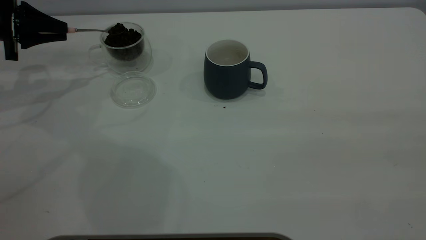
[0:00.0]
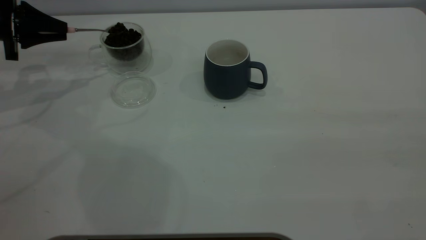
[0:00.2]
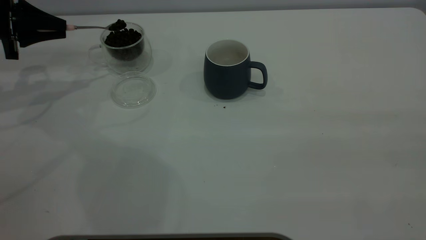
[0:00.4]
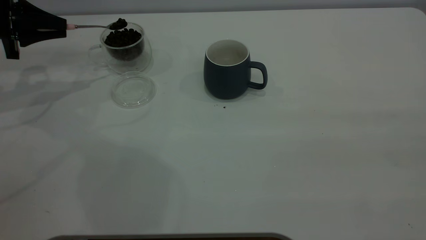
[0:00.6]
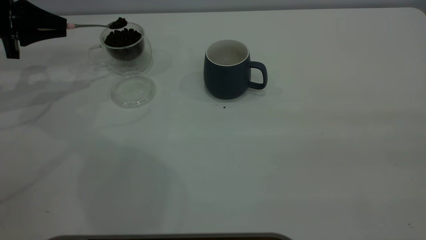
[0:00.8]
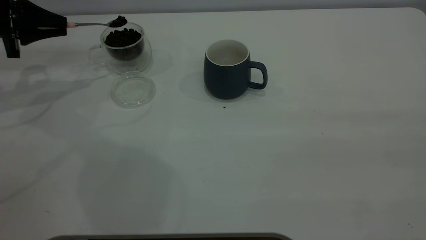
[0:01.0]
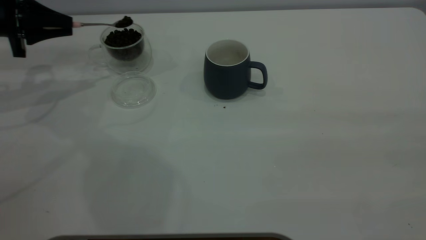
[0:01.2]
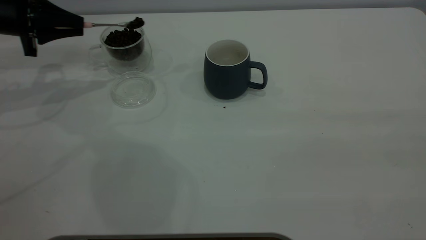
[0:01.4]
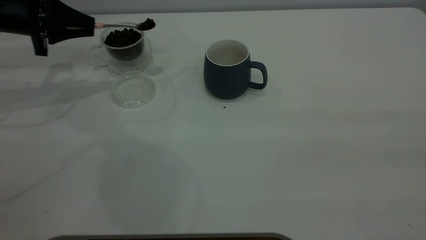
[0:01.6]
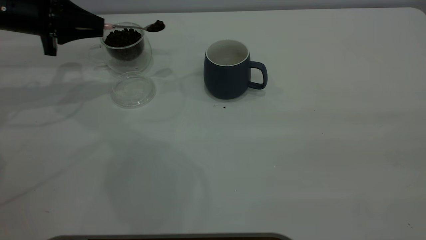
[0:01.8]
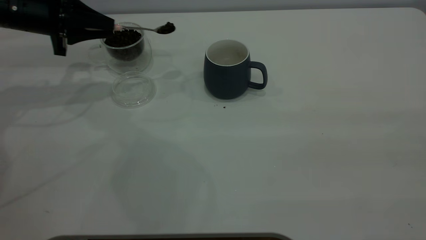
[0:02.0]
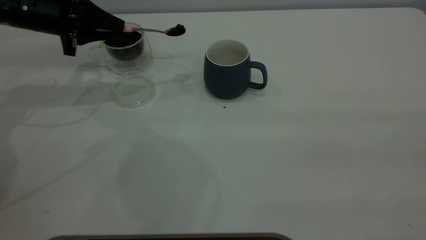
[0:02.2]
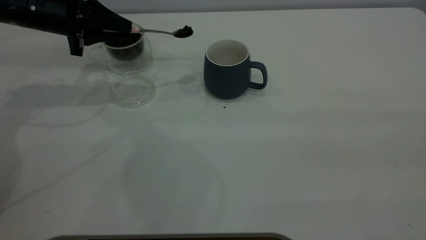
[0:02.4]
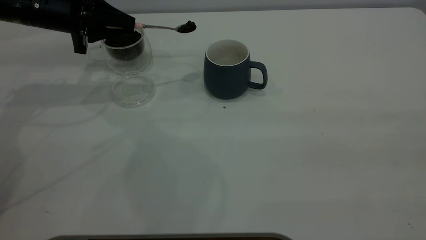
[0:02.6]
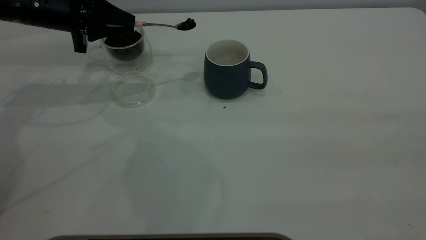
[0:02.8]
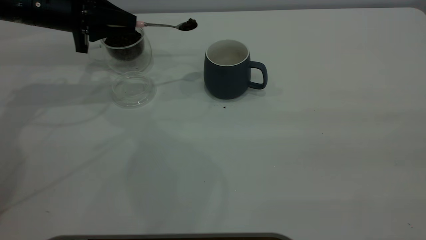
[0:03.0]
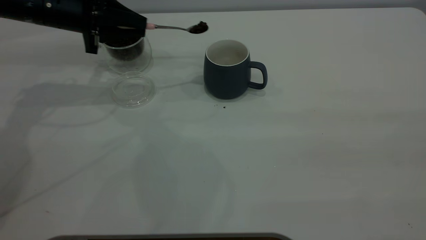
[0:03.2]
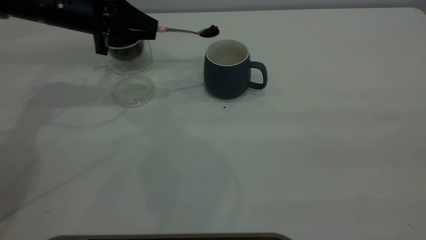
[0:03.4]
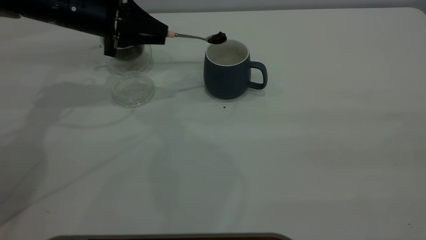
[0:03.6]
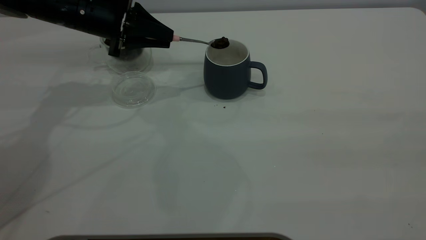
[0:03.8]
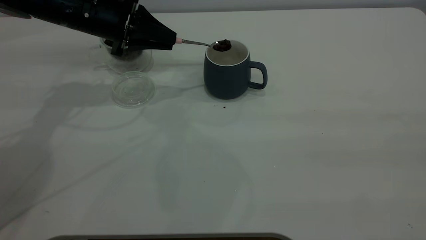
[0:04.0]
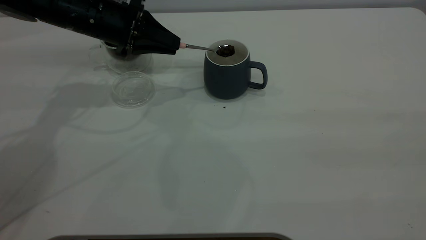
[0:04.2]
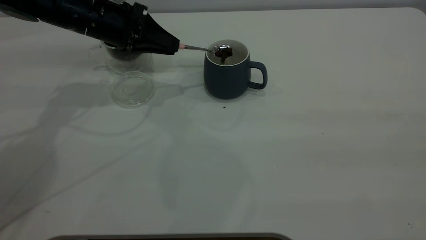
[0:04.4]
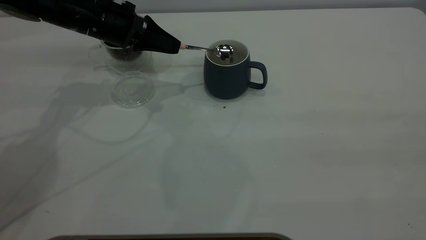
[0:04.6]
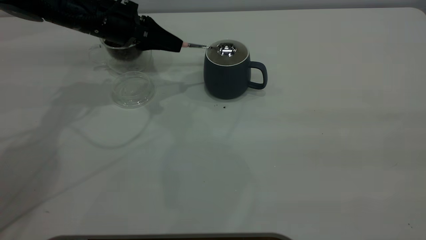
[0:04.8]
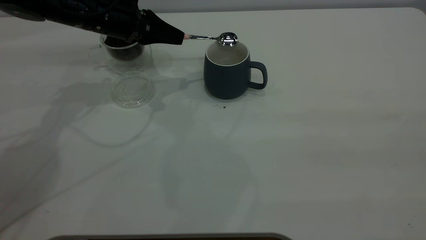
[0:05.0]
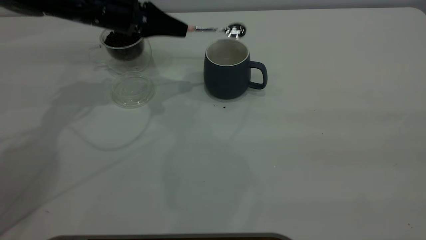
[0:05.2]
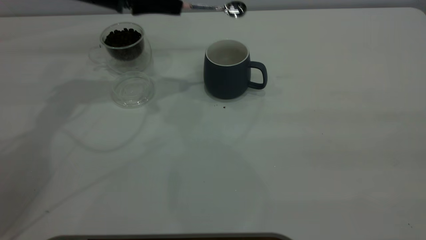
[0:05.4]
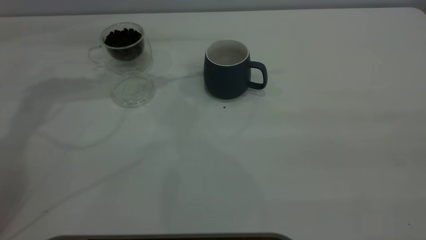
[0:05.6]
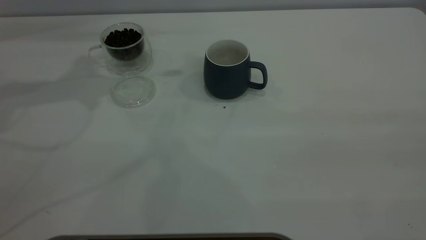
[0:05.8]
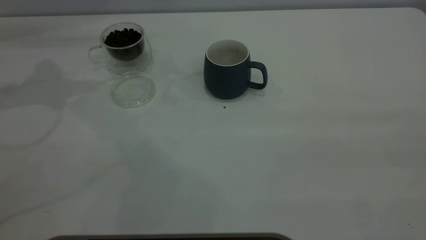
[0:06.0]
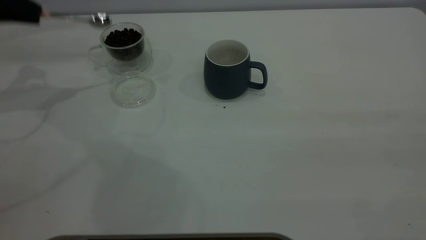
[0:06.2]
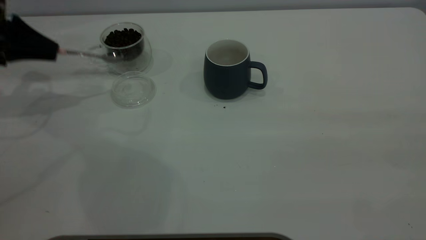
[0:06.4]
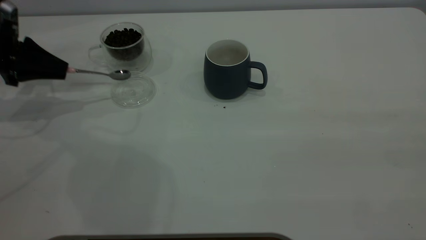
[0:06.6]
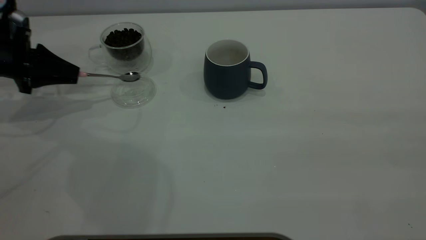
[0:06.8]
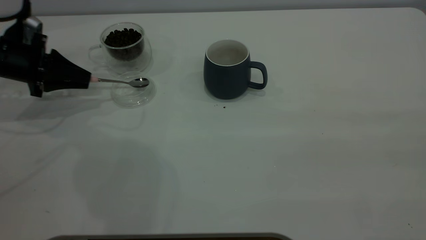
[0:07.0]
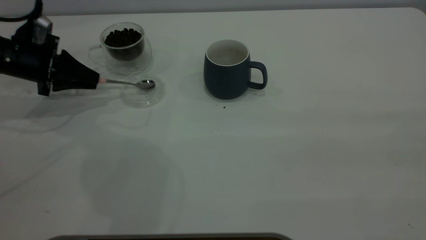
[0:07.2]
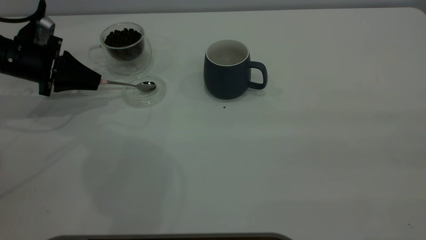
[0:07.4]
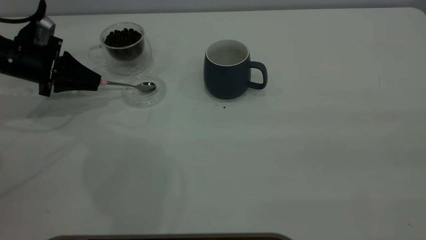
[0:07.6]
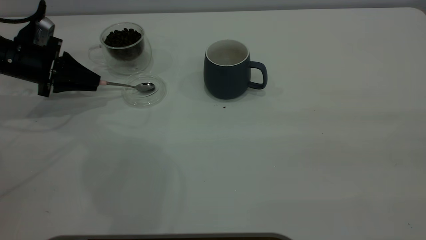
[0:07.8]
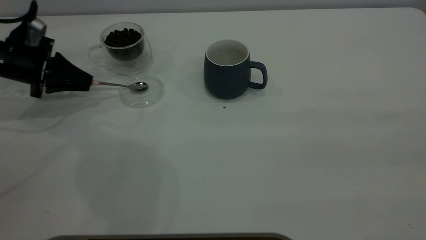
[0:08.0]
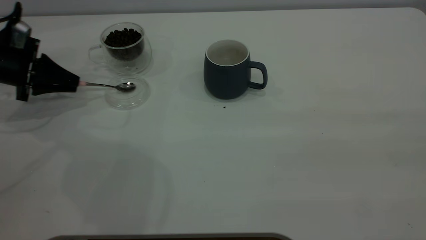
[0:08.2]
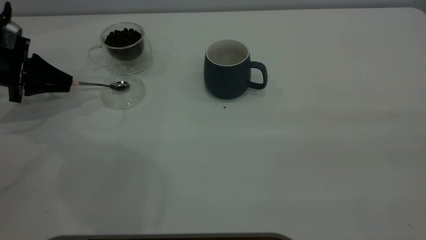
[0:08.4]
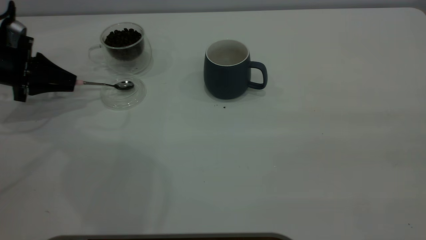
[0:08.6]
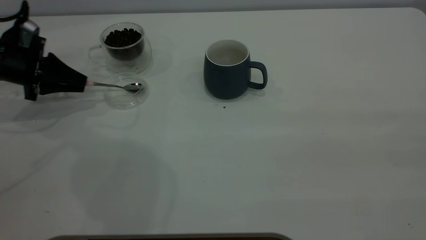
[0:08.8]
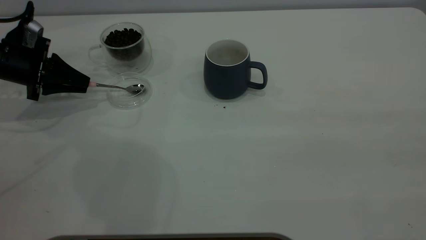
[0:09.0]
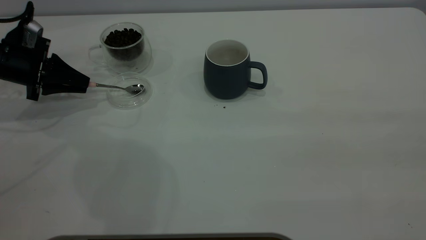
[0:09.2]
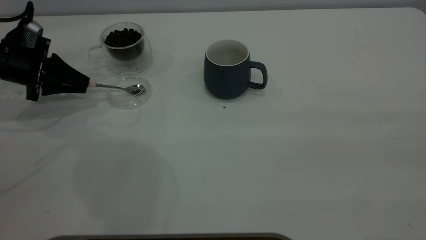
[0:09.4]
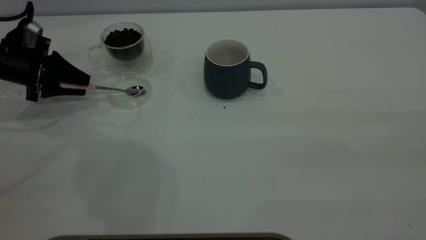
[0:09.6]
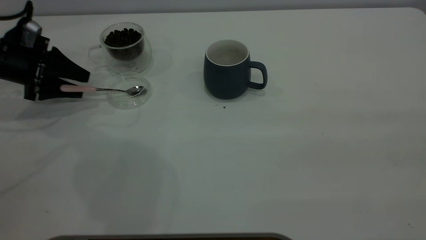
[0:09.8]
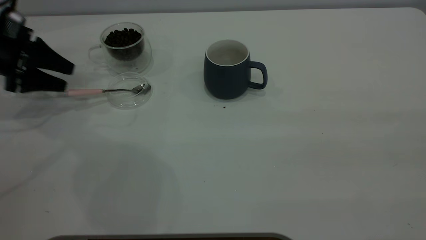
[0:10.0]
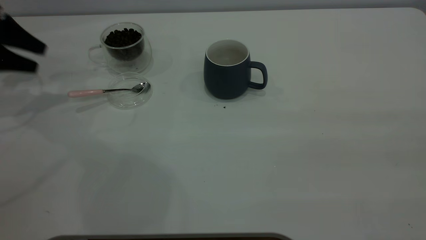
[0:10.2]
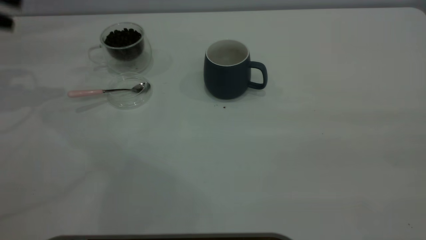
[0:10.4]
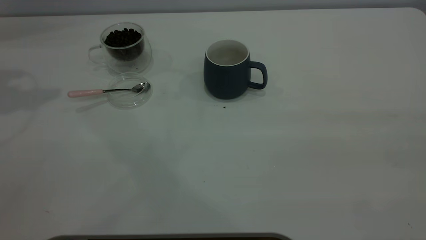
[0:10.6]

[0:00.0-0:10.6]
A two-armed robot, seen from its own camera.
Task of the whole recording: the right gripper place the grey cup in the center of the table, the left gripper take the pink spoon from the cup lid and scoop out the coffee beans from the coffee cup and put them into the grey cup, the left gripper put the spoon back into the cup lid.
Step, 0:00.0 to 0:05.2: Scoop a spoonful of beans into the cup.
Step, 0:05.4 to 0:10.0: Place the spoon back in its original place.
0:00.0 to 0:01.6: The left gripper shifts roughly 5 cm to the right.
0:01.6 to 0:03.0: The left gripper shifts about 5 cm to the right.
0:03.0 to 0:04.6: The left gripper moves to the right, about 5 cm.
0:04.6 to 0:06.0: The left gripper is displaced to the left and upward by about 20 cm.
0:06.0 to 0:07.6: The left gripper is displaced downward by roughly 15 cm.
0:07.6 to 0:09.0: The grippers make only small movements.
0:09.0 to 0:10.6: The left gripper heads upward, covering about 30 cm, and opens.

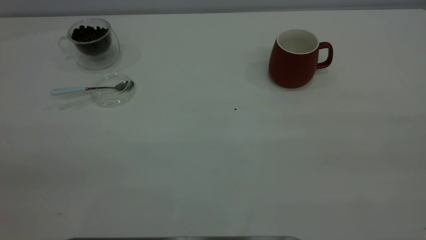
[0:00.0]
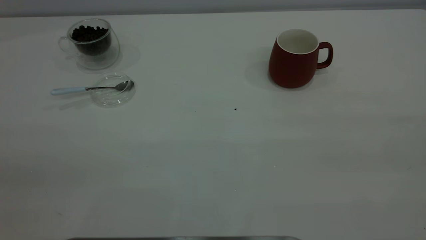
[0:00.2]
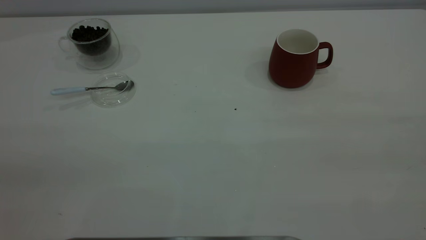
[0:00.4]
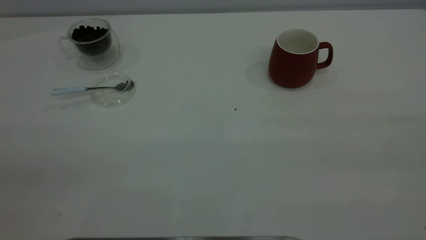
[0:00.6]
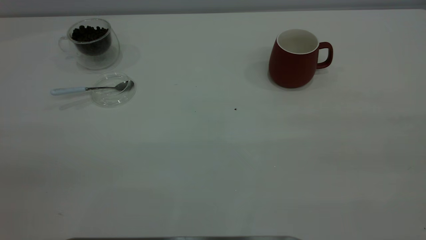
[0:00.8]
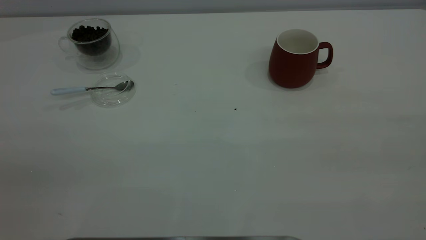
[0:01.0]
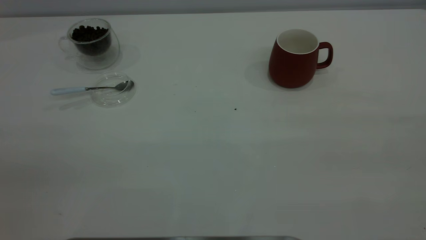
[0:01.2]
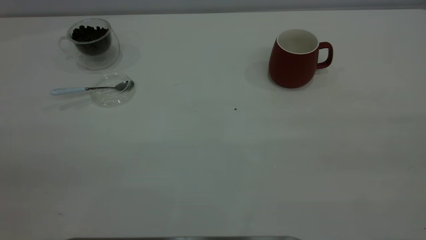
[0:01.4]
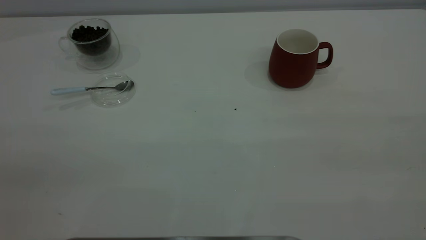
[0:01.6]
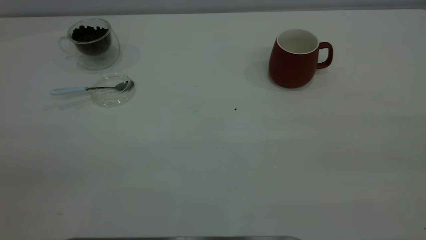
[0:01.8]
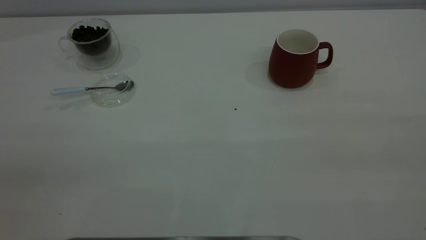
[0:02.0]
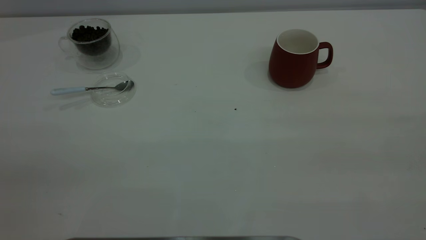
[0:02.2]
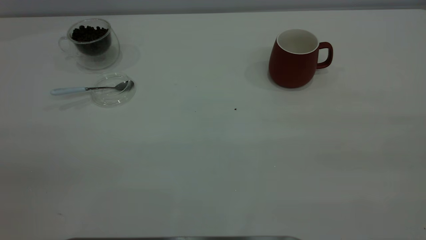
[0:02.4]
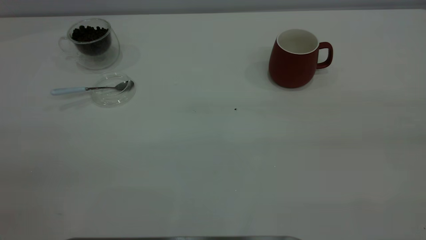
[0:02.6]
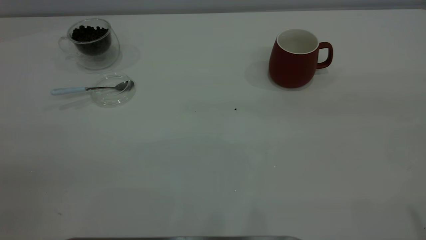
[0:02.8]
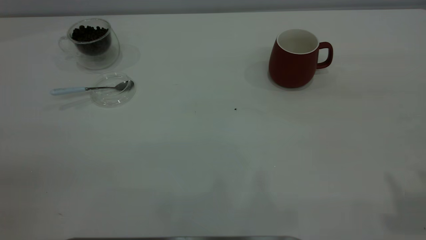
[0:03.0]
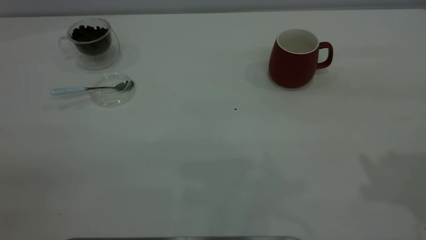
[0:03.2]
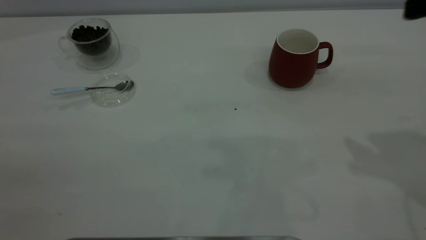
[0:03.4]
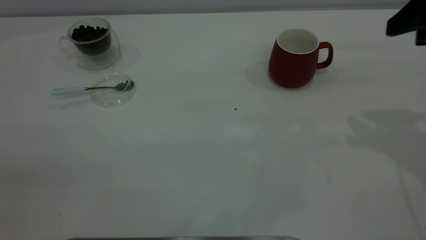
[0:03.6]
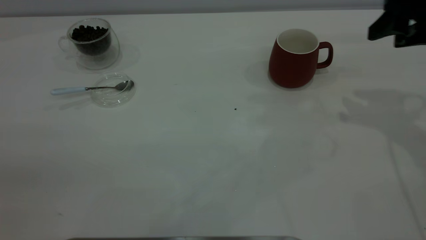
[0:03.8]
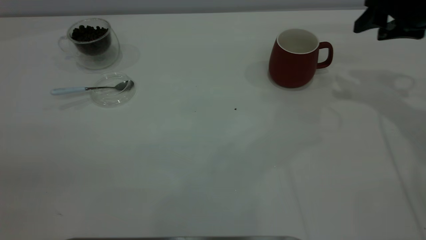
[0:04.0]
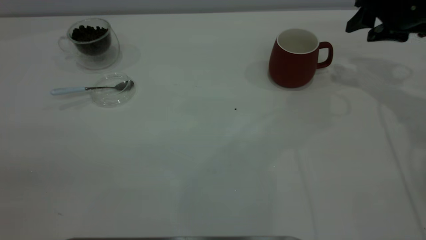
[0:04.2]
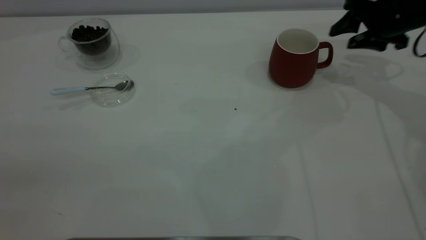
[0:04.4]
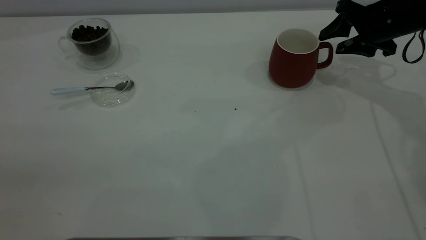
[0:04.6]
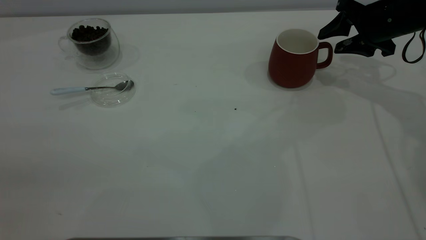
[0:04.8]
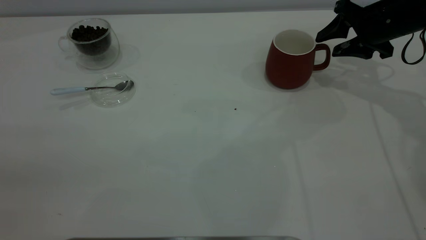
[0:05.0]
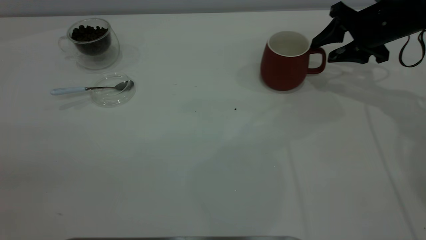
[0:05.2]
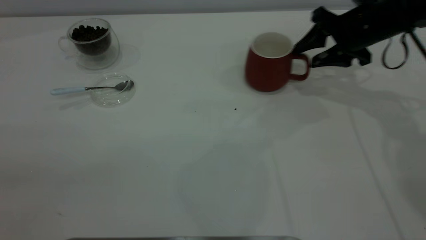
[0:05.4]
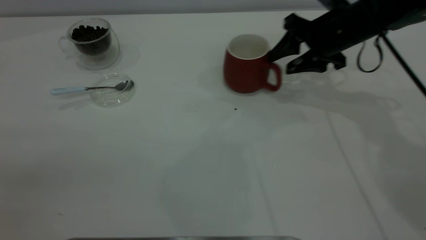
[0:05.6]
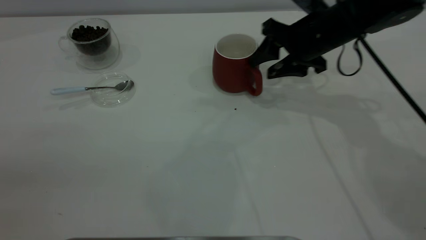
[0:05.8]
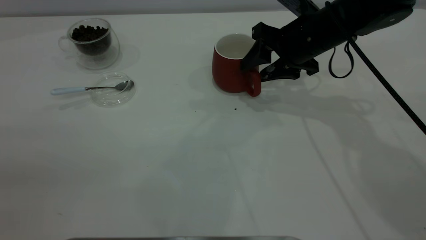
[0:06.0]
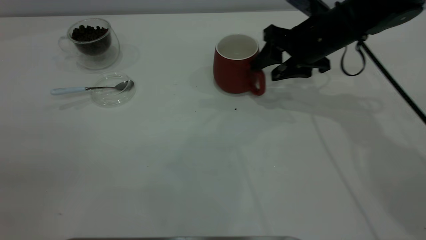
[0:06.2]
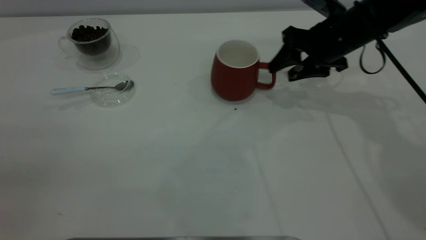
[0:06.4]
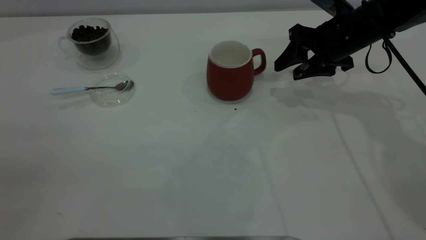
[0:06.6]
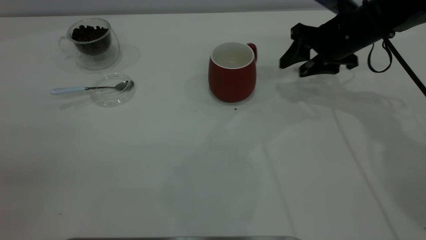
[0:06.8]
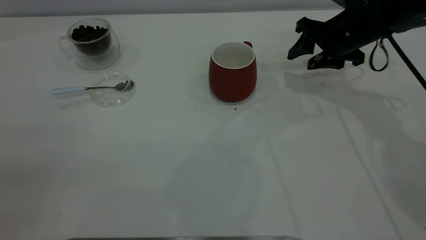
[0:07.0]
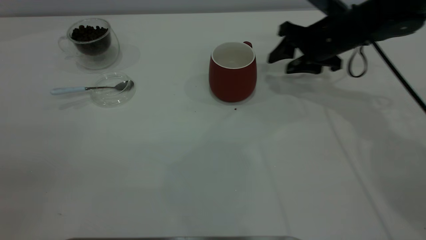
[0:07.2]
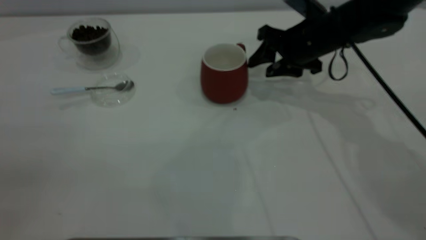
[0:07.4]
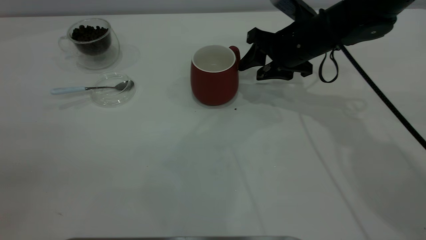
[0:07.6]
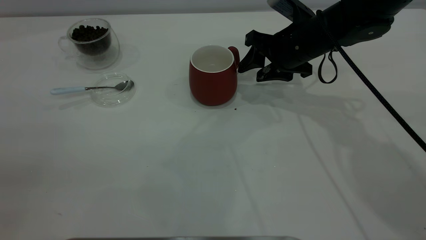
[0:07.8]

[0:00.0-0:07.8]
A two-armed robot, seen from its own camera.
Task of the whole recording: the right gripper place the red cup in the center of the table, the left gripper take the blue spoon from the cup lid and scoop out the coffee beans from the coffee cup and put them into the red cup, the left gripper put the spoon back into the cup lid.
Step, 0:00.0 to 0:07.8: Move the cup to the center of view.
0:00.0 to 0:01.6: Neither gripper changes place.
0:03.2 to 0:04.6: The right gripper shifts roughly 30 cm forward and downward.
0:04.6 to 0:06.2: The right gripper travels to the left by some 10 cm.
0:06.2 to 0:07.8: The grippers make only small movements.
